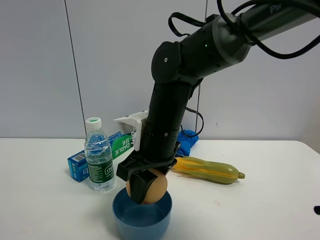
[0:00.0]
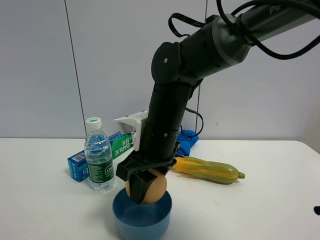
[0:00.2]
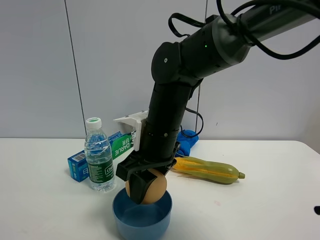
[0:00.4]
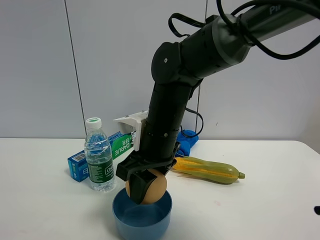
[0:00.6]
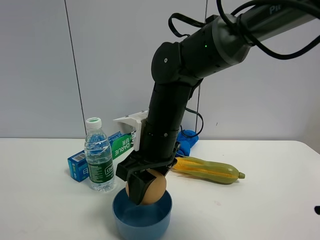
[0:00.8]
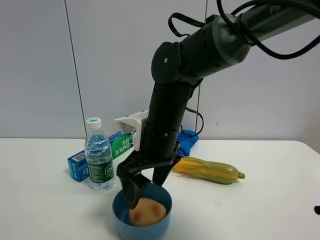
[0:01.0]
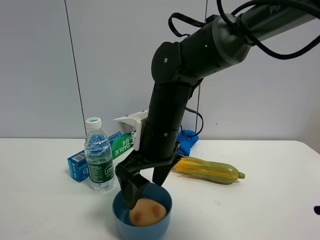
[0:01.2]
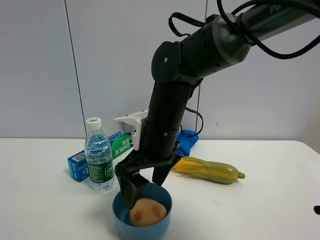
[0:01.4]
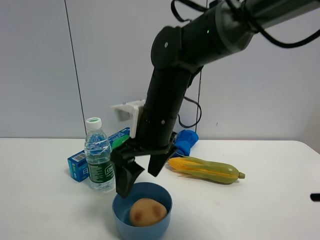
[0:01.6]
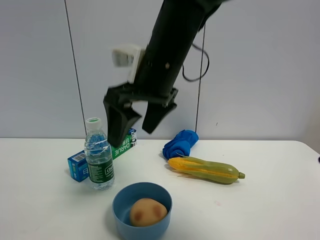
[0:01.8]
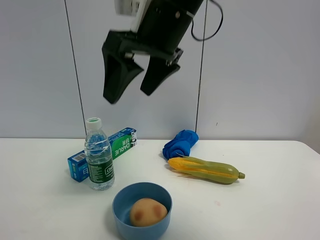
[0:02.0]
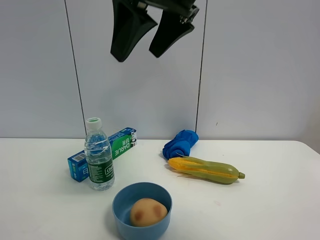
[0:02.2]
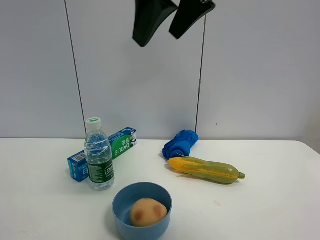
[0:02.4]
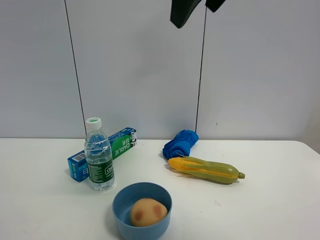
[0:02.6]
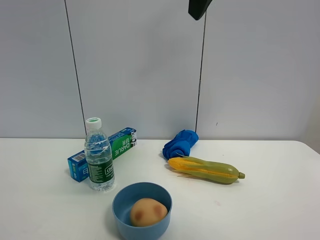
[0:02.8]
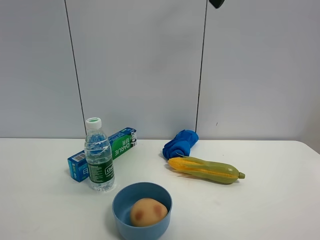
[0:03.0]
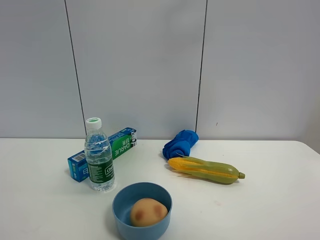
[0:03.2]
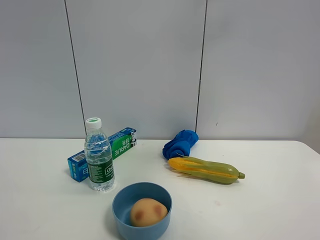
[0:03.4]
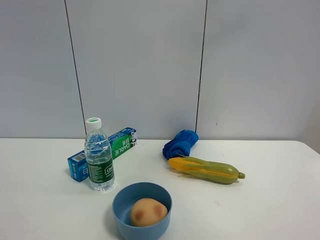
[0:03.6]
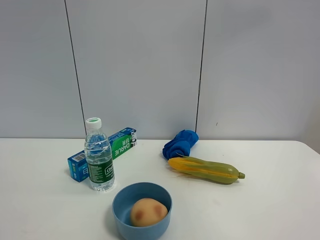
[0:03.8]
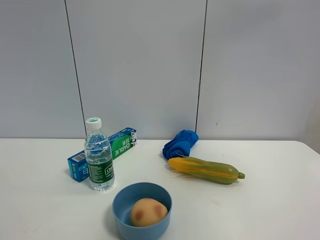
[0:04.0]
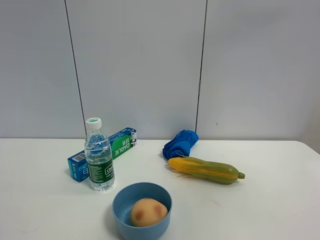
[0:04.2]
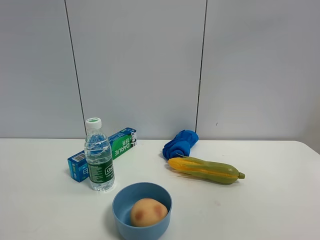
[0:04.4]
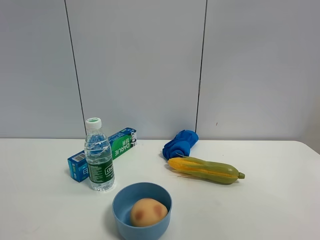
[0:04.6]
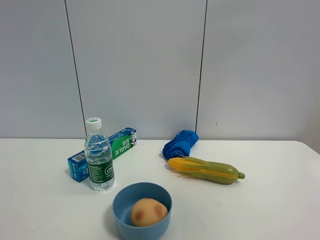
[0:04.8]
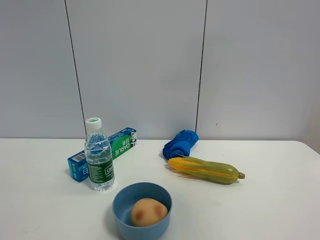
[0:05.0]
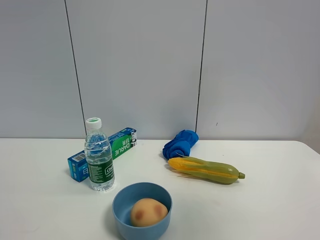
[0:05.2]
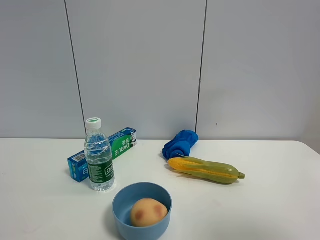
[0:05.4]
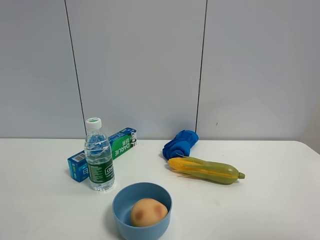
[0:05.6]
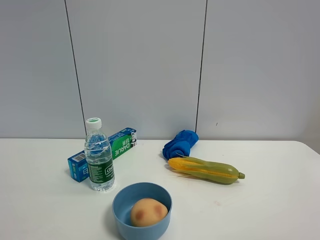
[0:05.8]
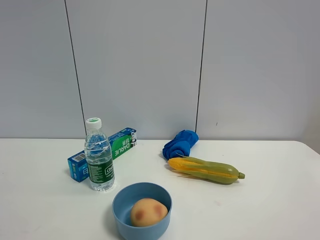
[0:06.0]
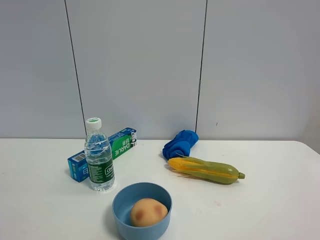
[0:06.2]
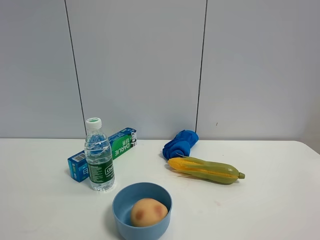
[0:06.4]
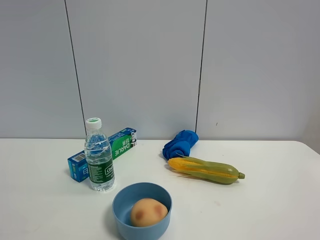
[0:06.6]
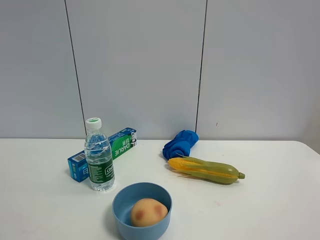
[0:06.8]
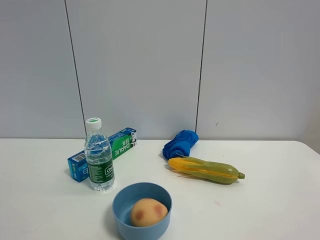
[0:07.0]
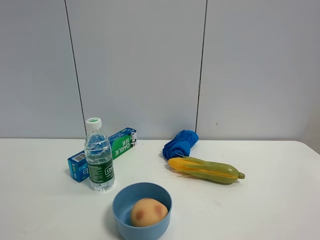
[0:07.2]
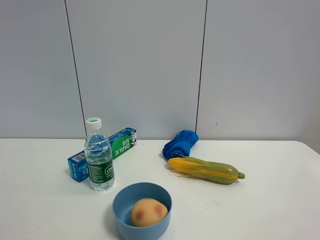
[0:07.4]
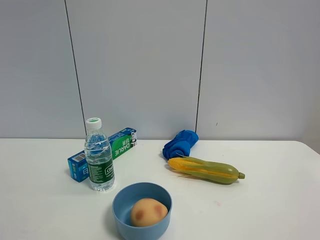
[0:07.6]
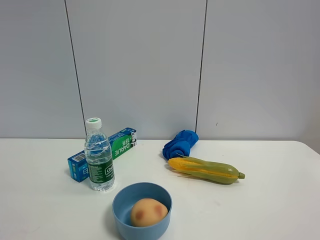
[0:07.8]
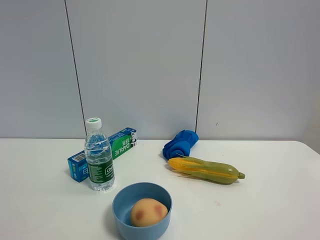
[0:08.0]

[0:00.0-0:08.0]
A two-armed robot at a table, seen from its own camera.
Task of the whole recording: the gripper move the object.
0:00.0 to 0:01.6: The right gripper opens up.
0:01.6 to 0:03.2: The right gripper goes some 30 cm upward and to the right.
0:03.2 to 0:04.8: The right gripper heads backward and to the right, covering roughly 25 cm.
0:04.8 to 0:06.4: The right gripper moves downward, some 25 cm.
0:06.4 to 0:08.0: Both grippers stay put.
